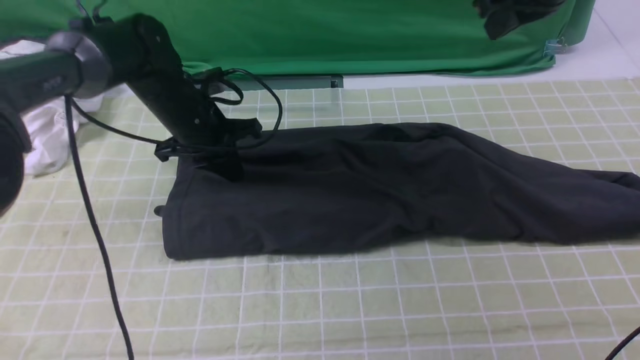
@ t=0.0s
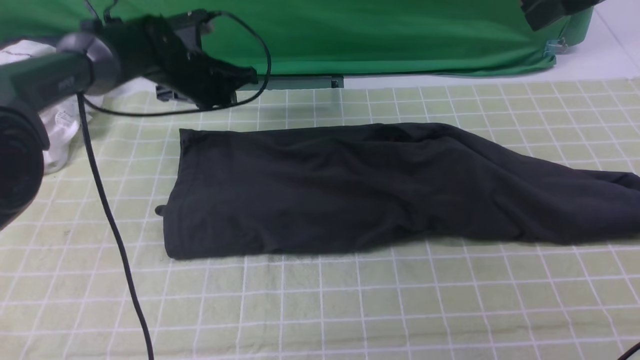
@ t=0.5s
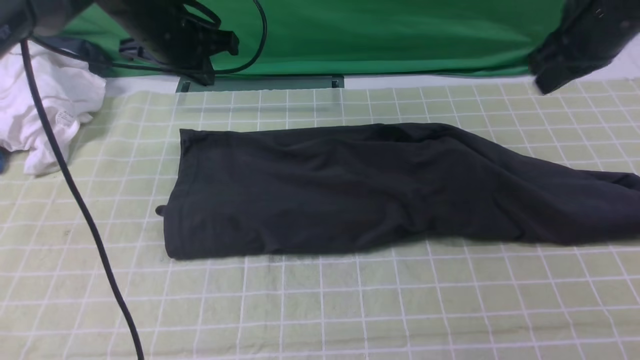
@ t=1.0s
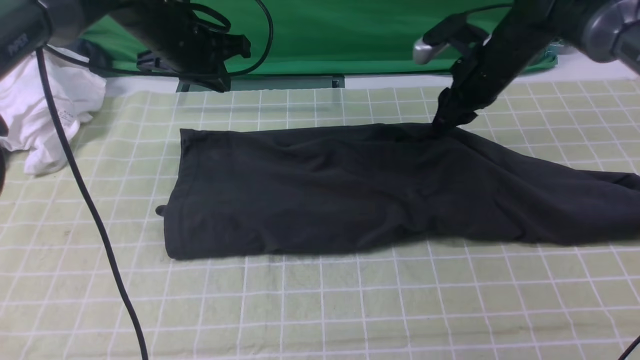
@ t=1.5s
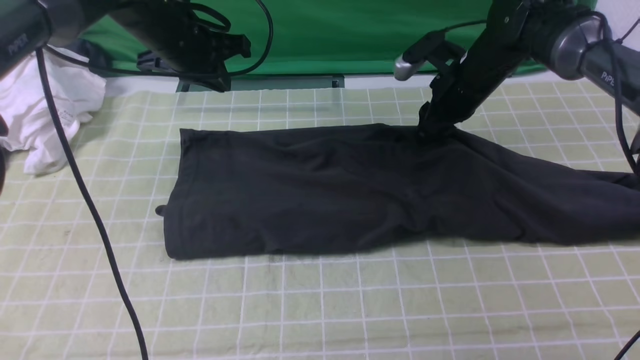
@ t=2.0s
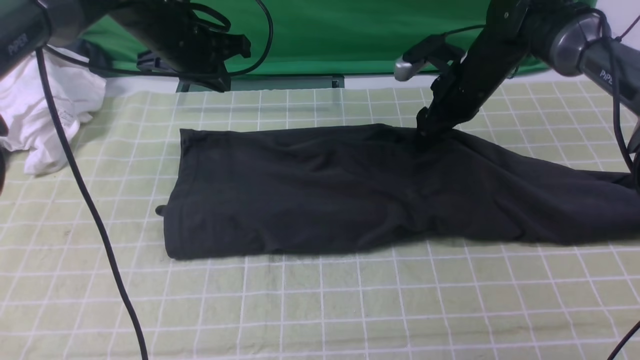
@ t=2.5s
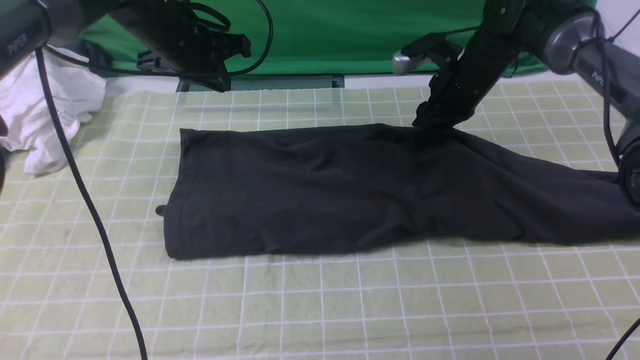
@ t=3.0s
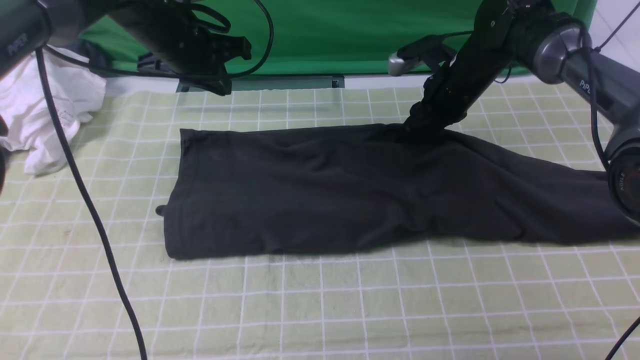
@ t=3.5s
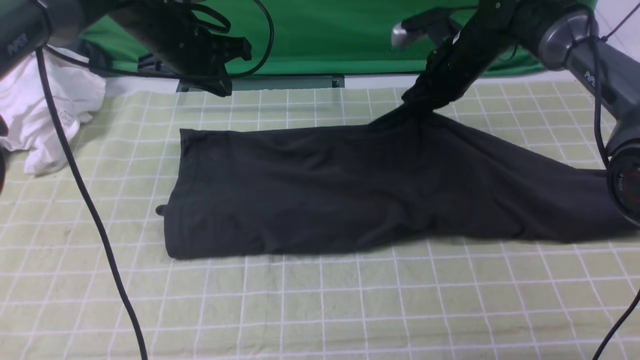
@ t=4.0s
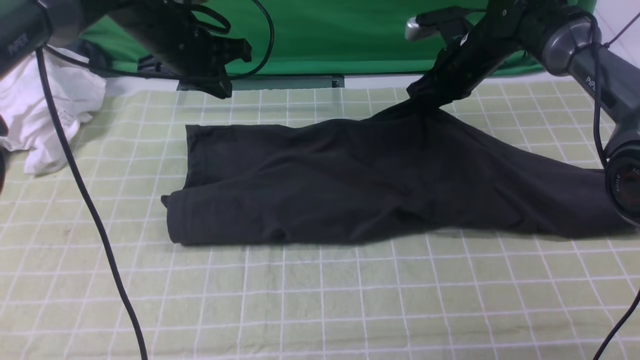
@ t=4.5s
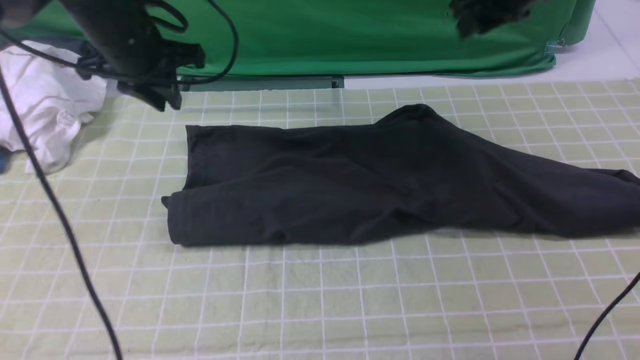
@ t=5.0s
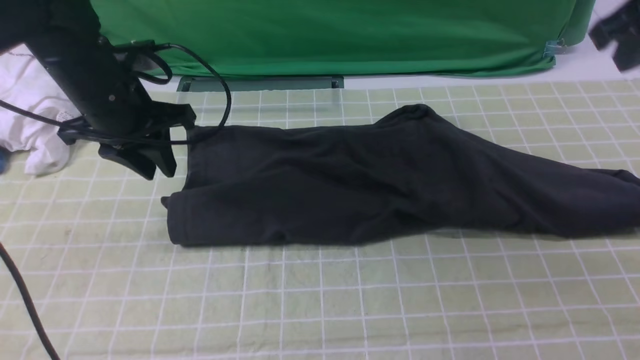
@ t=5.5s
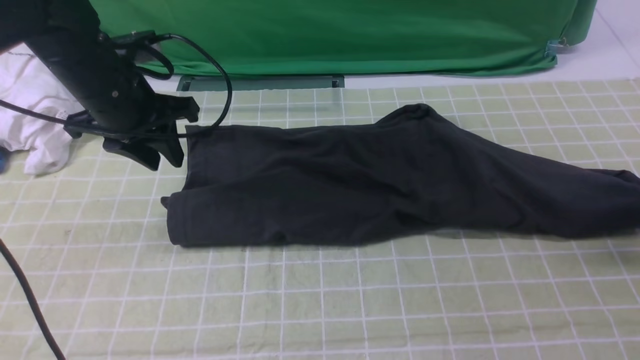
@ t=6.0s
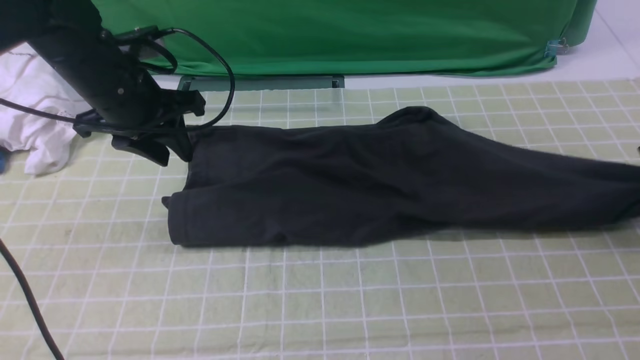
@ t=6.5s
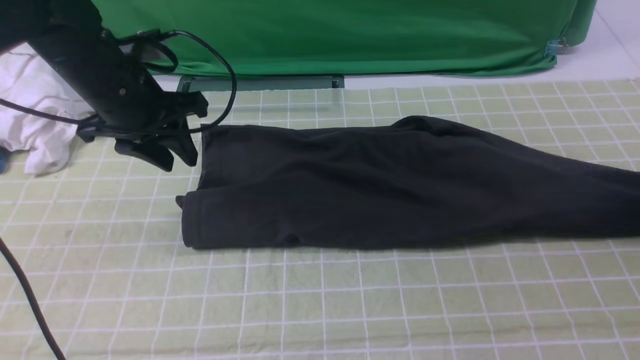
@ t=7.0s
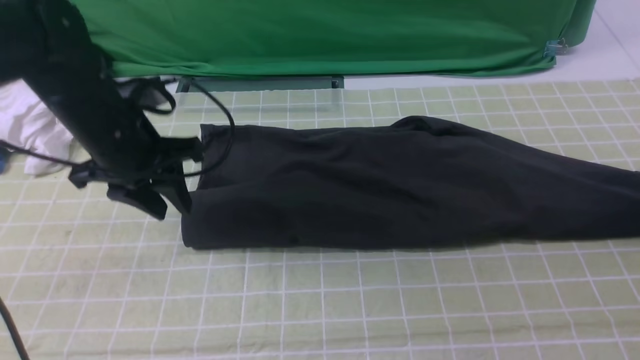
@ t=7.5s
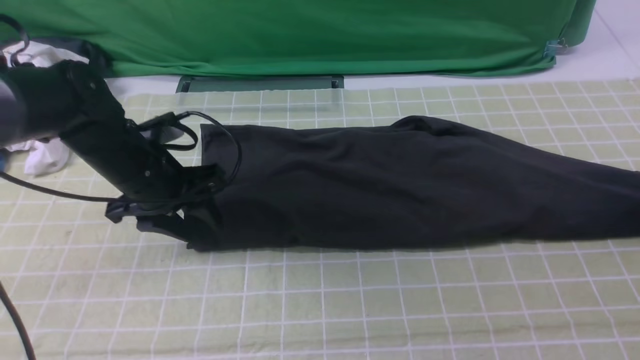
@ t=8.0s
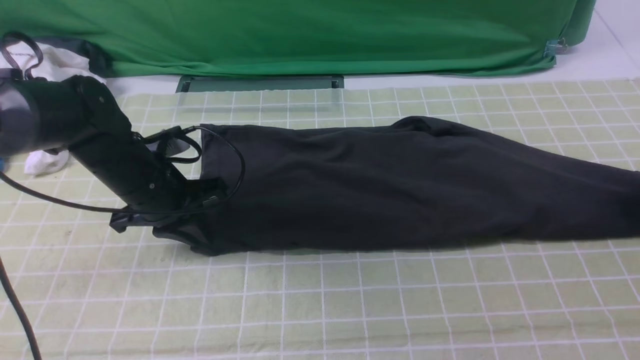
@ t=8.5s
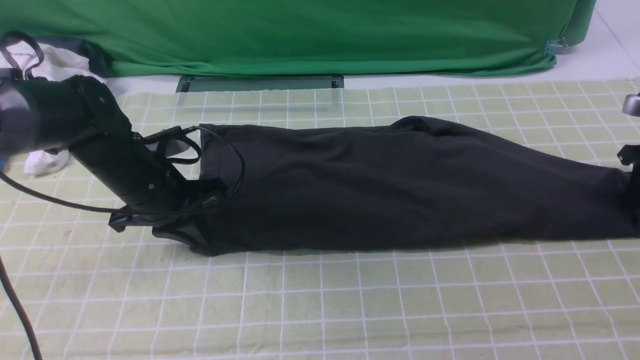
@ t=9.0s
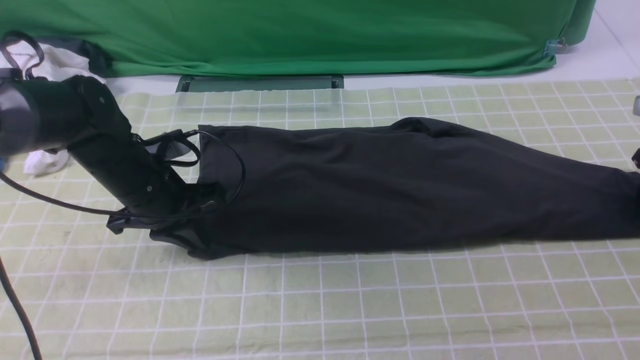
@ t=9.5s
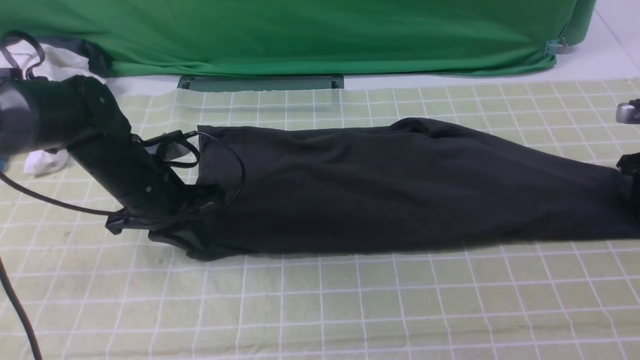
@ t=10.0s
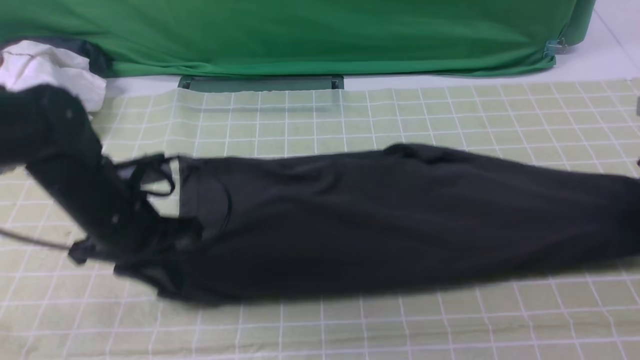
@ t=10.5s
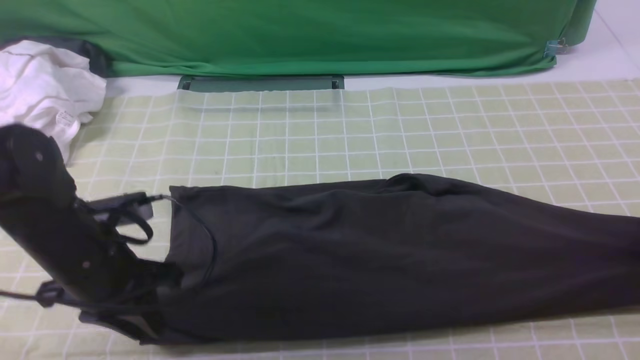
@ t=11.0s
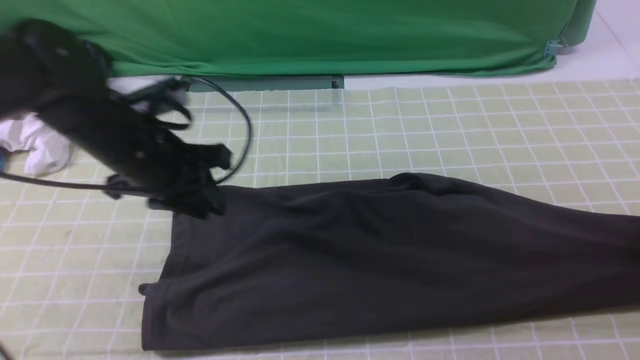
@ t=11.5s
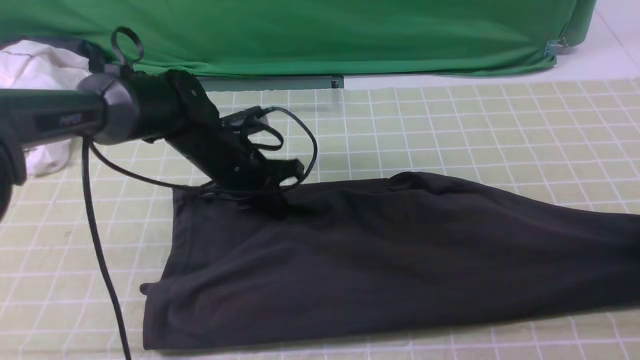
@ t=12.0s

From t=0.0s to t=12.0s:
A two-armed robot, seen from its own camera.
Step, from t=0.0s to t=4.5s: use both arms to drag the lower edge of the fabric forward and fold it over the upper edge.
From t=0.0s to t=2.0s: The right gripper is displaced downward and forward by roughly 20 cm, and opens its fingers; the left gripper travels upward by about 10 cm.
From t=2.0s to t=4.0s: The right gripper closes up.
From t=4.0s to t=6.0s: The left gripper goes some 10 cm backward, and opens its fingers; the right gripper moves to the right and backward, about 30 cm, and opens.
From t=6.0s to t=8.0s: The left gripper shifts some 10 cm downward, while the right gripper goes roughly 5 cm to the right, and opens up.
From t=8.0s to t=10.0s: The right gripper shifts some 5 cm downward, and closes up; the left gripper closes.
From t=10.0s to t=12.0s: The left gripper heads to the right and forward, covering roughly 10 cm, and opens, then closes once more. Meanwhile the right gripper goes approximately 10 cm backward, and closes.

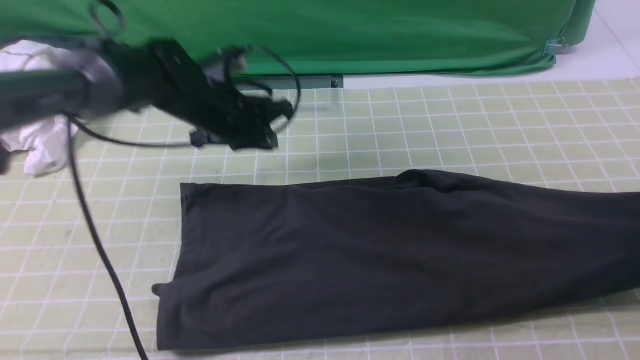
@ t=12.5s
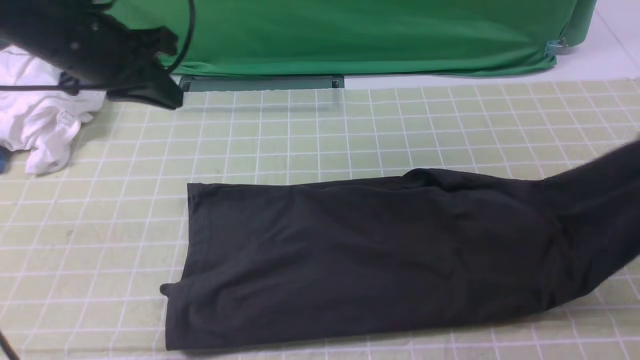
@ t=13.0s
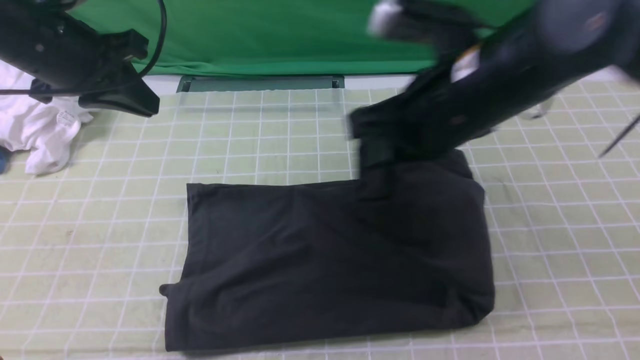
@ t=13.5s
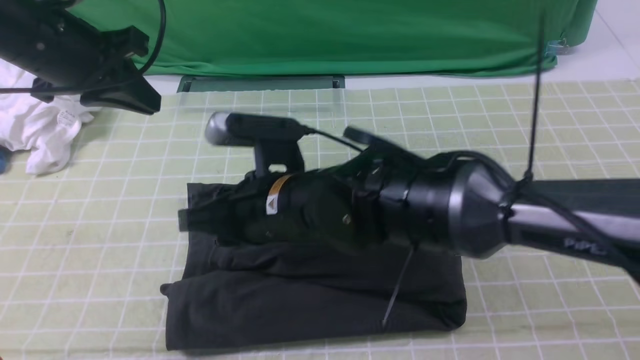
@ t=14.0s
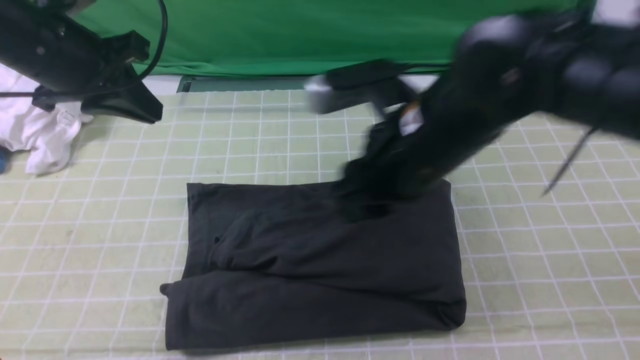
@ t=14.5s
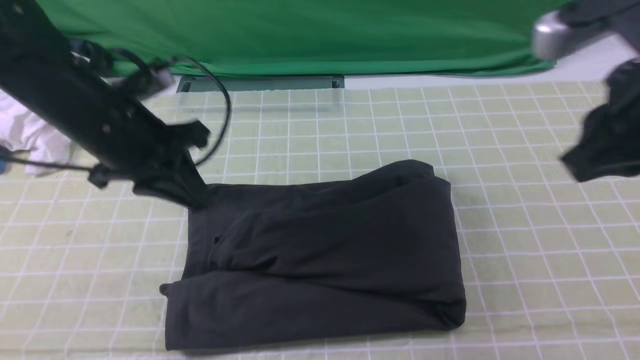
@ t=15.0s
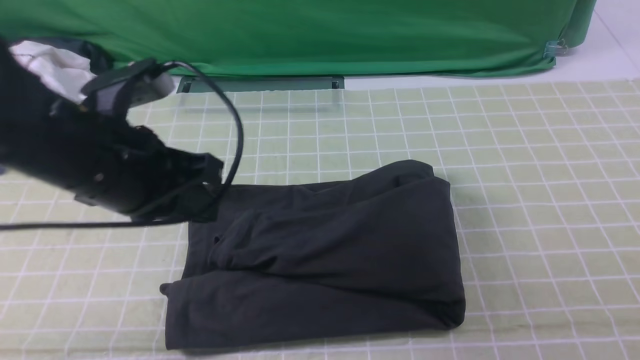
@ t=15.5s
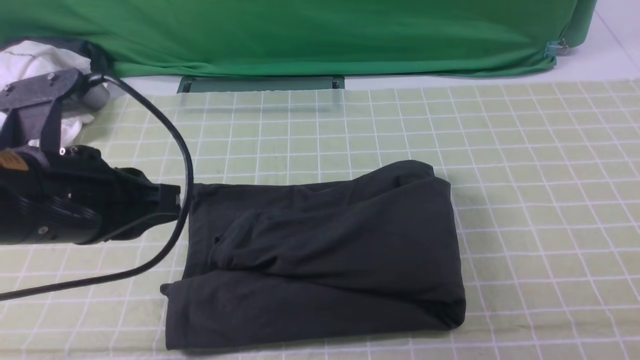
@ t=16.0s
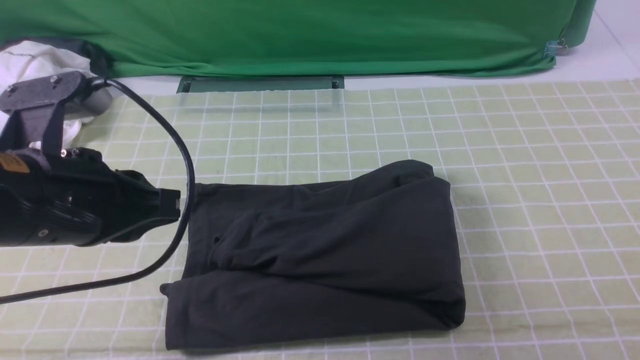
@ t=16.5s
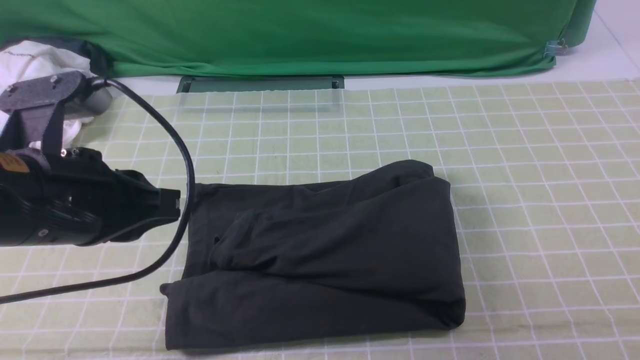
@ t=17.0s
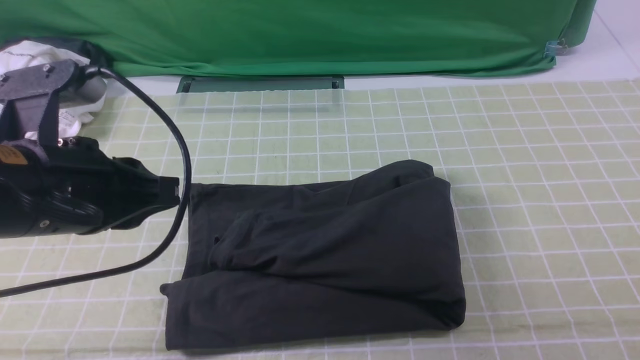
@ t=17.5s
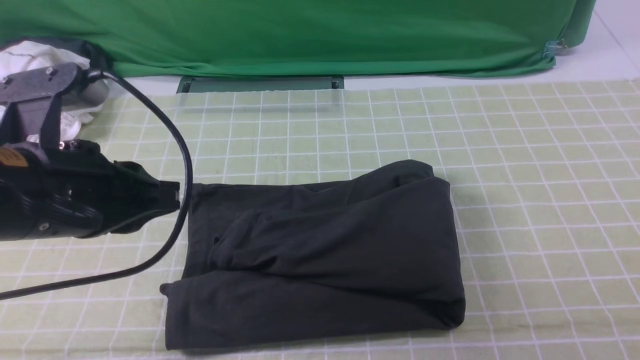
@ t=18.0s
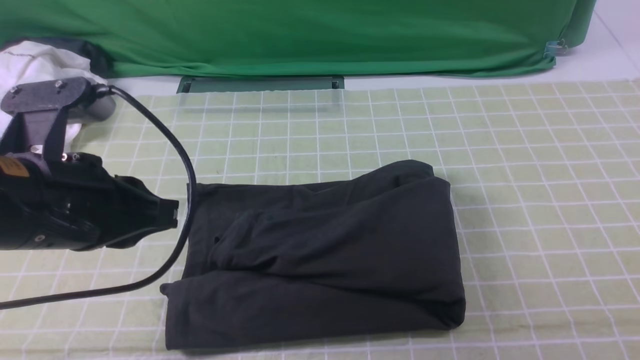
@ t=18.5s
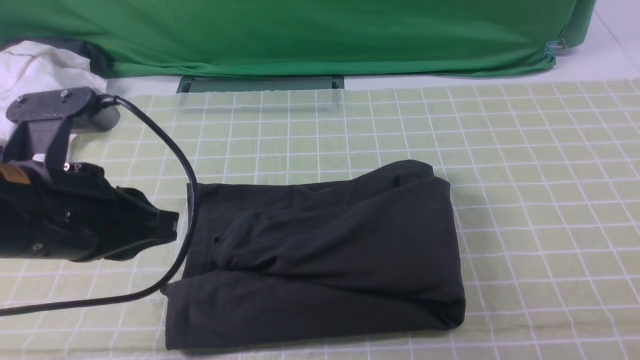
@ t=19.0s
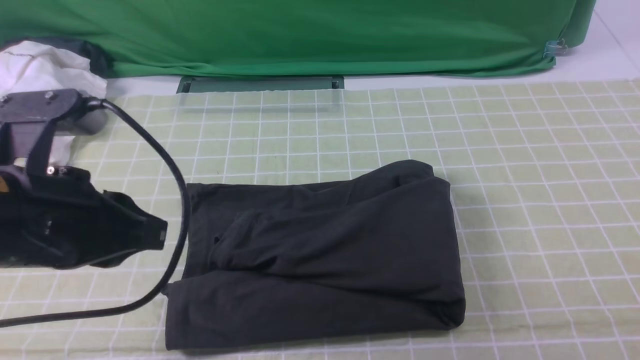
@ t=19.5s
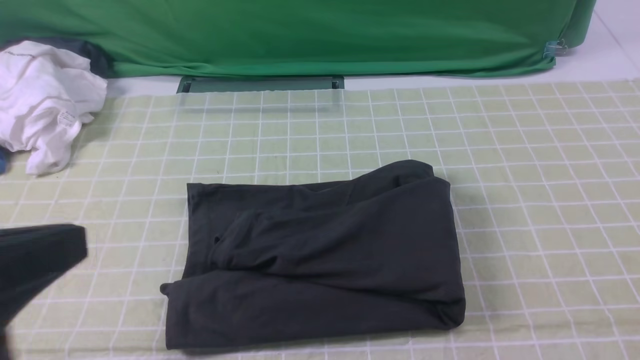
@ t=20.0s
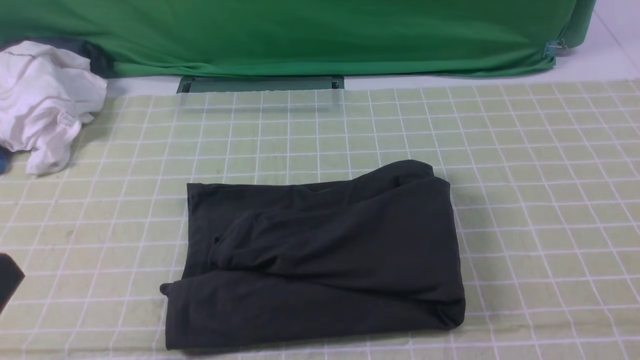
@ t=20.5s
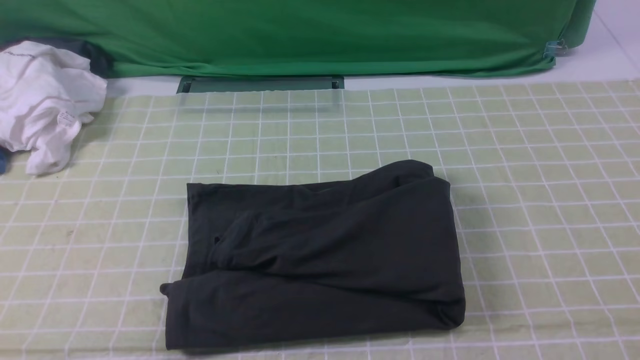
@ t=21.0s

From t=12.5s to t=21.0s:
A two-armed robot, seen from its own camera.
Step, from t=12.5s to t=14.0s: use the right arm to drag the right edge of the fabric to the left and folds it over the left edge.
From t=12.5s to t=14.5s: The left gripper travels upward, to the left and backward by roughly 15 cm, while the right gripper heads to the left, covering about 35 cm, and opens its fingers.
From t=14.5s to t=16.5s: The right gripper shifts some 30 cm to the right and backward, and closes. Meanwhile the left gripper travels backward by roughly 15 cm.
From t=19.0s to t=21.0s: The left gripper shifts approximately 15 cm backward.
